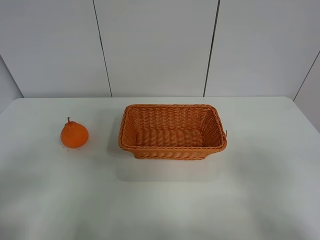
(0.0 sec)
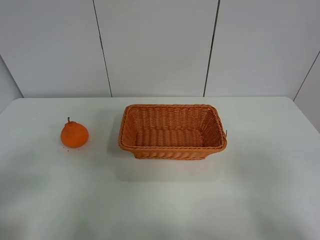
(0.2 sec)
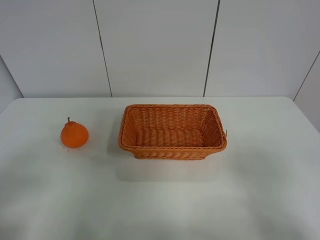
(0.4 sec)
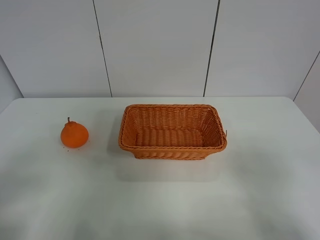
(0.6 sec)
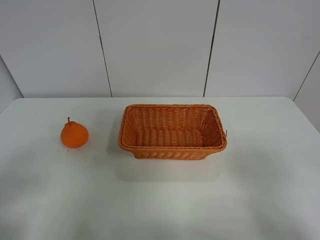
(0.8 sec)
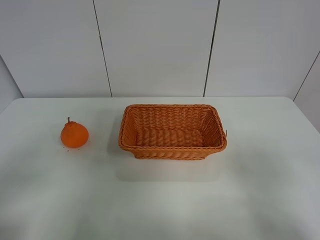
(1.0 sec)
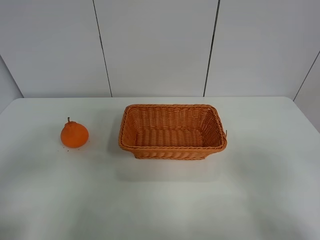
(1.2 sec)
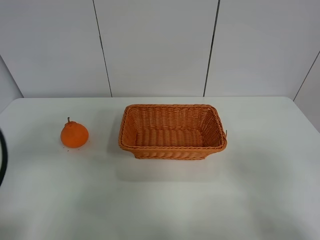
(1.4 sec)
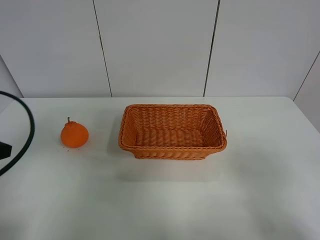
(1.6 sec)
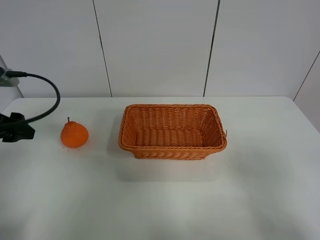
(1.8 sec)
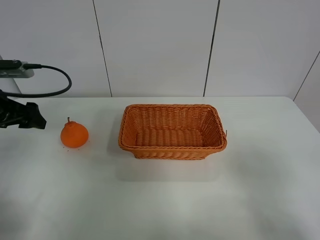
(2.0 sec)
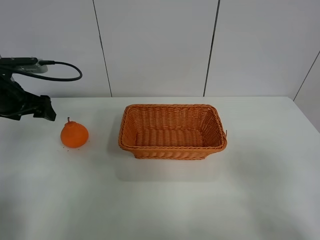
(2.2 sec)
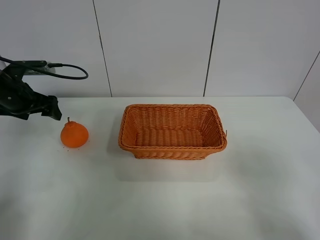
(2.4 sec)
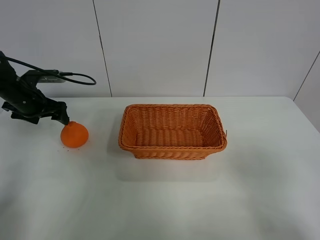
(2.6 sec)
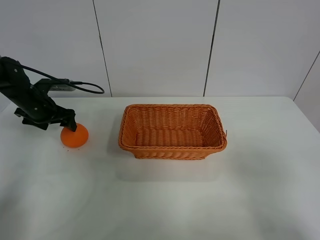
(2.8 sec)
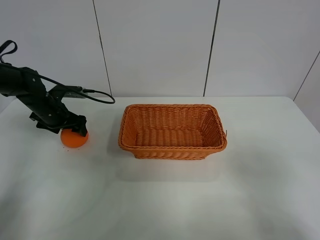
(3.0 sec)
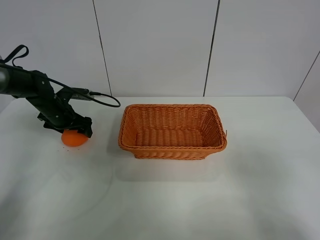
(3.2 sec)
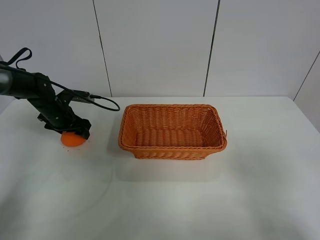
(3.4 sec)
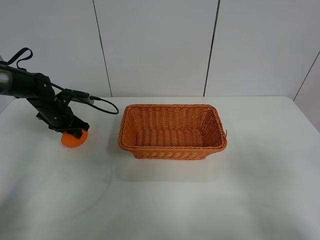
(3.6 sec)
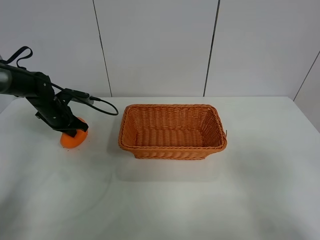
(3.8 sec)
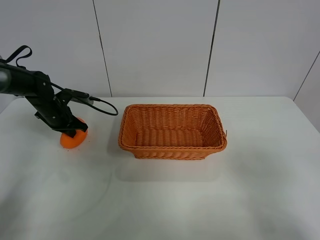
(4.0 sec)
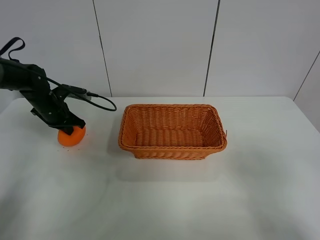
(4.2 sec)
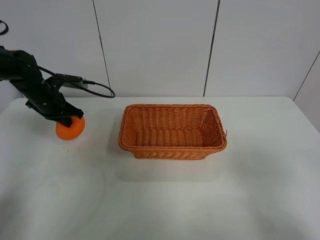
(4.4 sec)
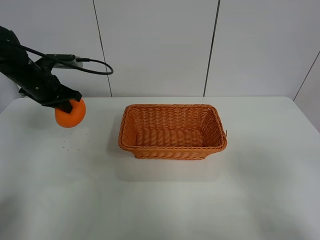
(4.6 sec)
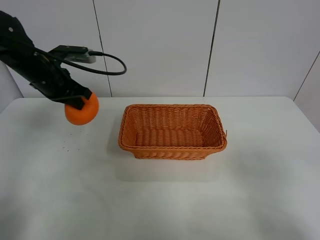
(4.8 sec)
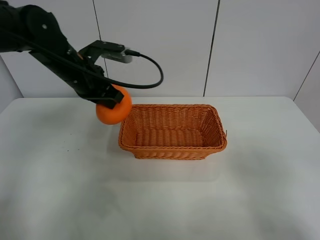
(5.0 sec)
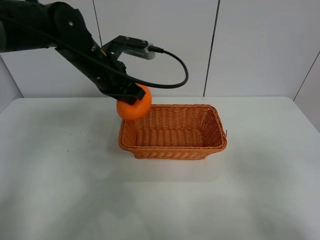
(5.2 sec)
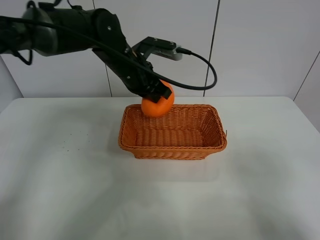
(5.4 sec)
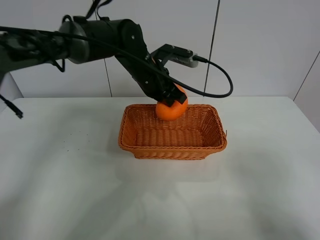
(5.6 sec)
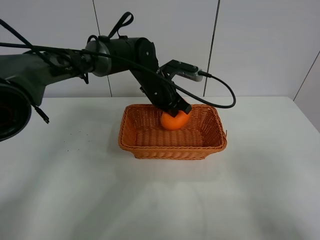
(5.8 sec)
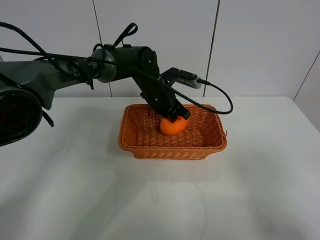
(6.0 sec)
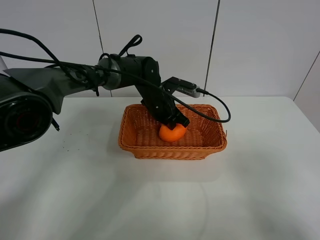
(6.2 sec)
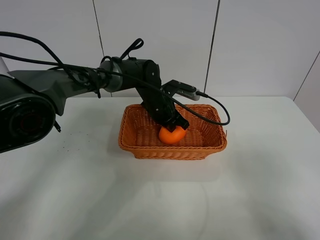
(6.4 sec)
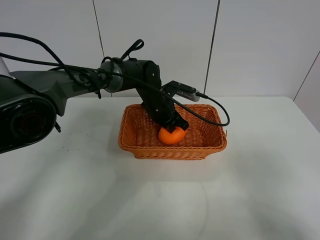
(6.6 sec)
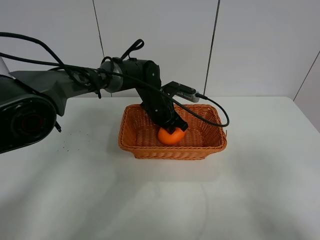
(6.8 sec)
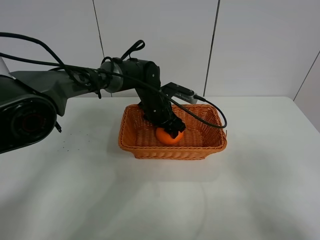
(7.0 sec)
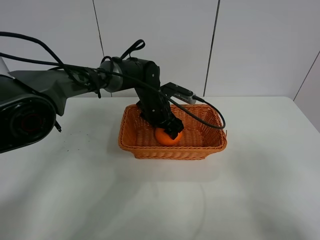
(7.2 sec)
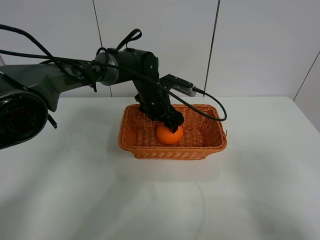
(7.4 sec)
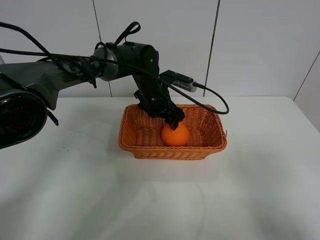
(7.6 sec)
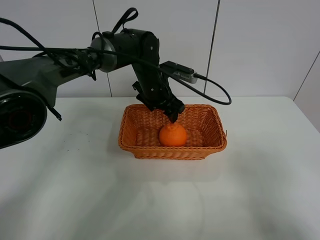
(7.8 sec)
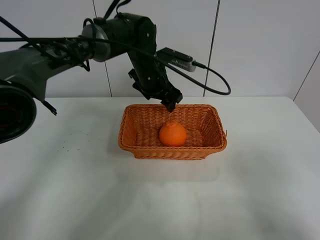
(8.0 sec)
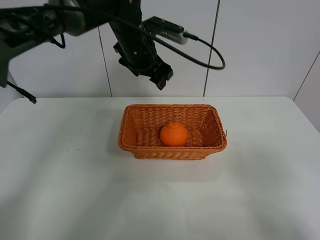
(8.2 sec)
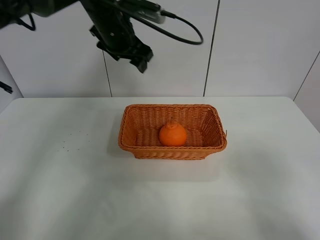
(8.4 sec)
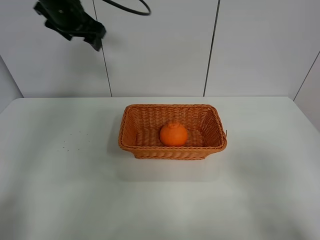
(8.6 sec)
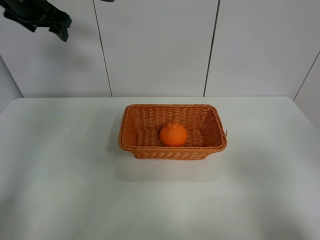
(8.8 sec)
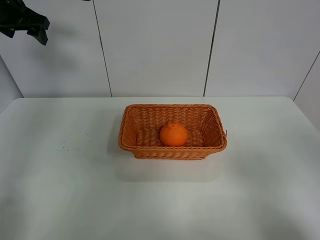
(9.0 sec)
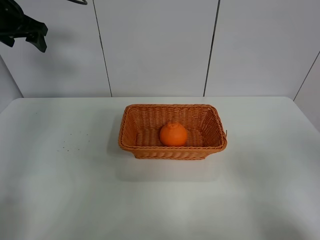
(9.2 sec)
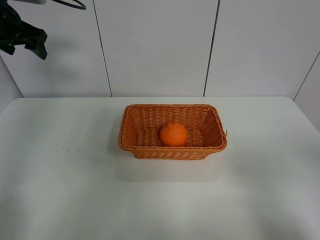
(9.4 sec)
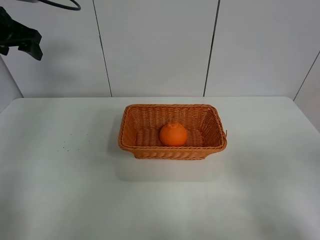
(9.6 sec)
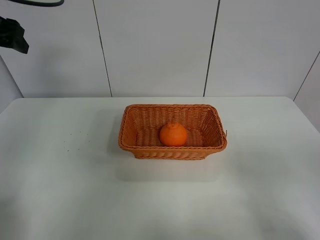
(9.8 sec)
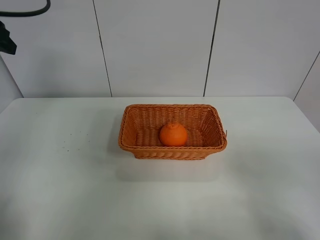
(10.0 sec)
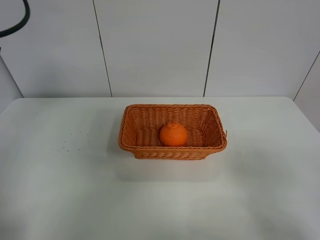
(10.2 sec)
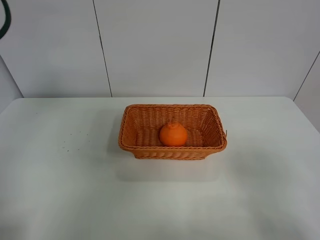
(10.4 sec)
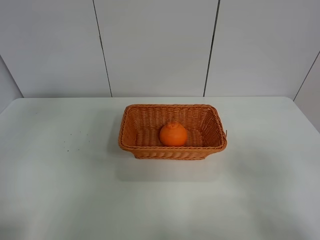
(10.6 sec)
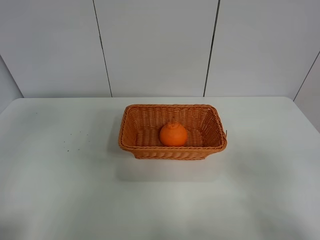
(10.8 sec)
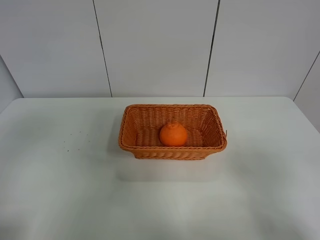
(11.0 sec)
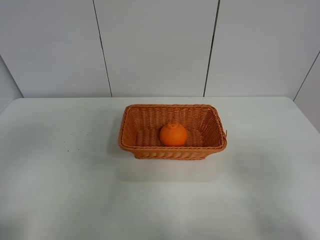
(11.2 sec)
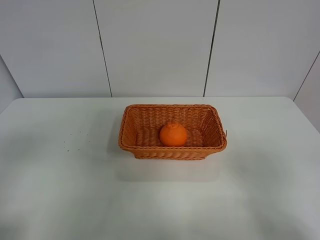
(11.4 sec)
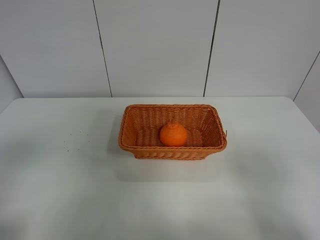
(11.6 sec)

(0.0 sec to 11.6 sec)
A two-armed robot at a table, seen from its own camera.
Task of the whole recording: left gripper grabs oranges and puts them in the basket.
Step, 0.0 sec - 3.6 sec: Grasp the orange with left gripper.
Step, 3.8 sec - 8.4 sec: Place the orange in the basket with left gripper.
0.0 sec - 1.4 sec: The left gripper is displaced forward by some 10 cm.
1.4 sec - 2.8 sec: The left gripper shifts roughly 30 cm forward and downward.
2.8 sec - 4.4 sec: The left gripper closes.
4.4 sec - 5.8 sec: The left gripper heads to the right, covering some 30 cm.
5.8 sec - 7.2 sec: The left gripper opens.
7.2 sec - 8.8 sec: The left gripper moves to the left and upward, roughly 35 cm.
8.8 sec - 10.2 sec: The left gripper moves backward, some 20 cm.
10.2 sec - 11.6 sec: The left gripper heads backward, covering about 25 cm.

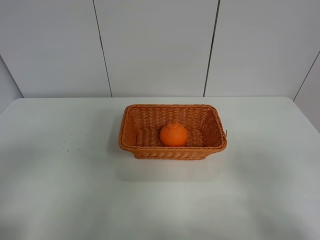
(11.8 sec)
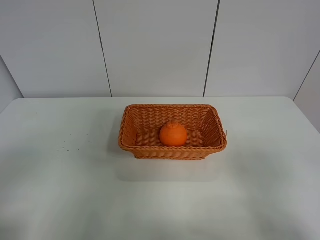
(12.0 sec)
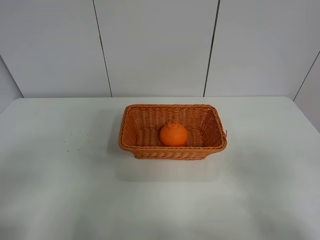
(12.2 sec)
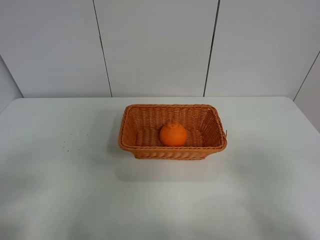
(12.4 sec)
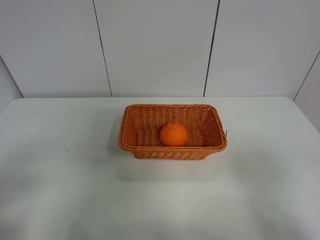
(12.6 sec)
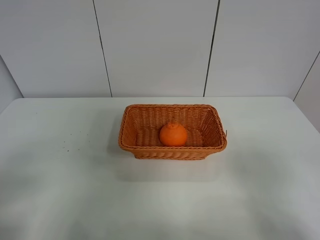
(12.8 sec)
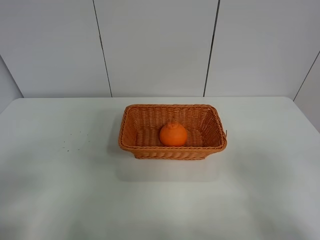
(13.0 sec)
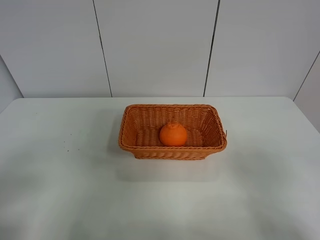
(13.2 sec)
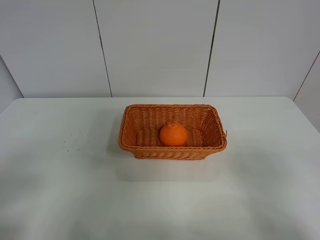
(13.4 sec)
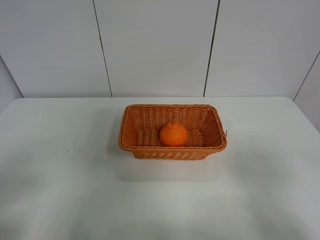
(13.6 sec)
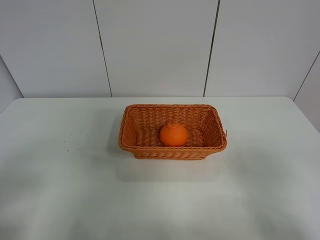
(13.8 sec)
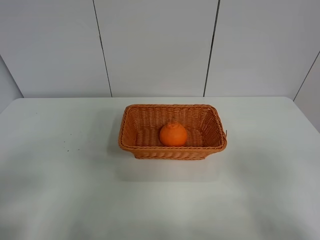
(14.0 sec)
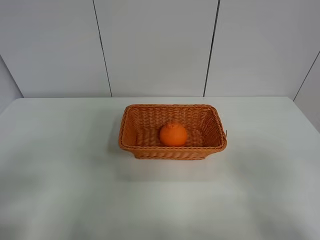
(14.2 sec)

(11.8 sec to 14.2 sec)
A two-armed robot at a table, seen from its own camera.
Task of the whole recording: left gripper grabs oranges and puts them in the basket.
13.0 sec - 14.2 sec: Both grippers stay about where they are.
